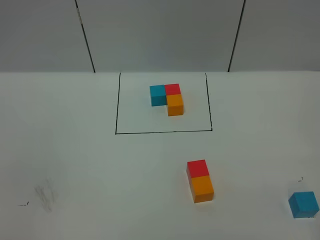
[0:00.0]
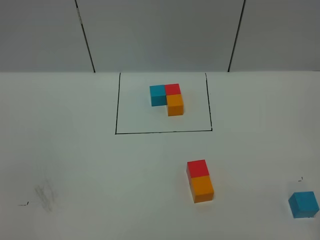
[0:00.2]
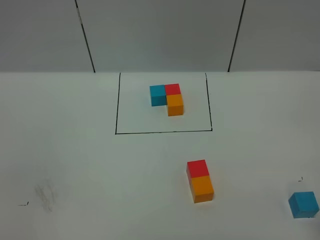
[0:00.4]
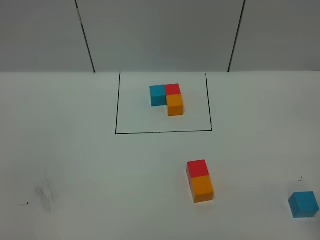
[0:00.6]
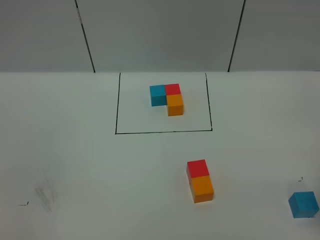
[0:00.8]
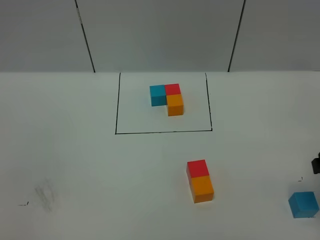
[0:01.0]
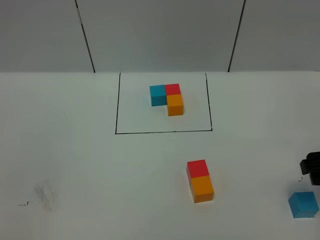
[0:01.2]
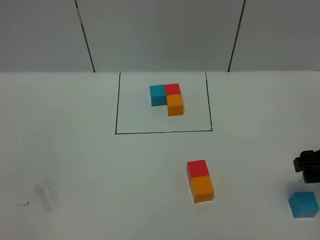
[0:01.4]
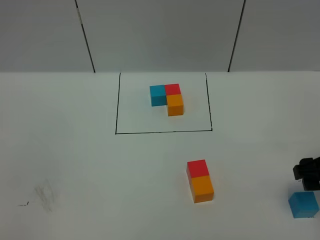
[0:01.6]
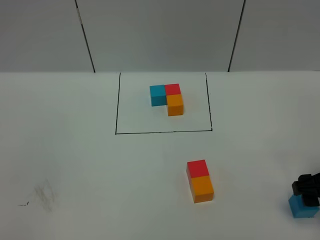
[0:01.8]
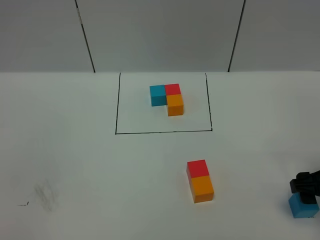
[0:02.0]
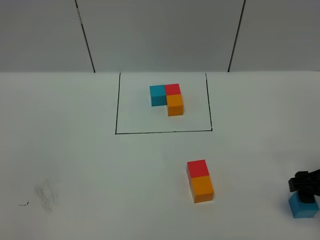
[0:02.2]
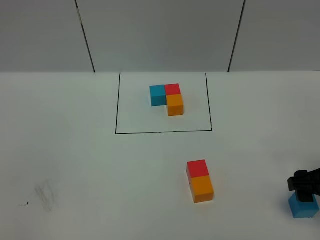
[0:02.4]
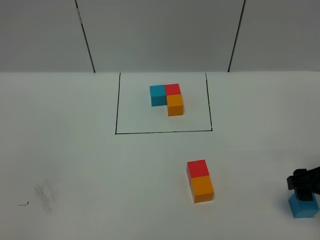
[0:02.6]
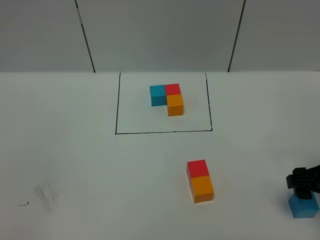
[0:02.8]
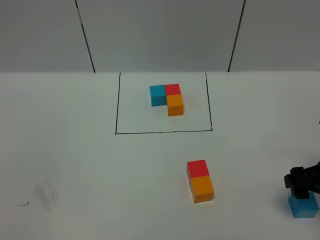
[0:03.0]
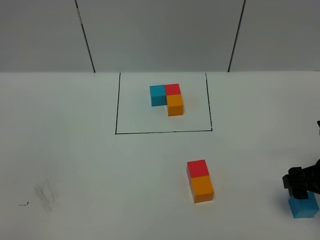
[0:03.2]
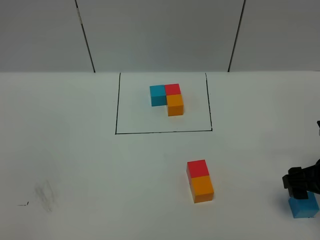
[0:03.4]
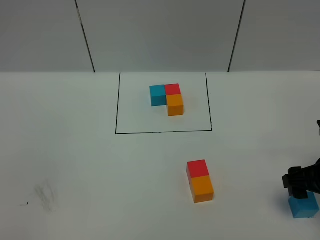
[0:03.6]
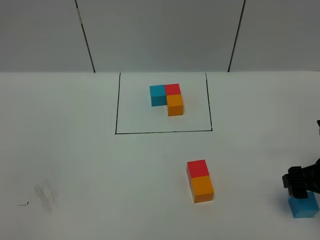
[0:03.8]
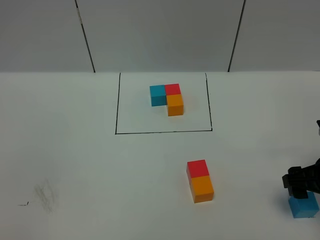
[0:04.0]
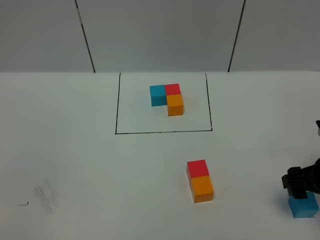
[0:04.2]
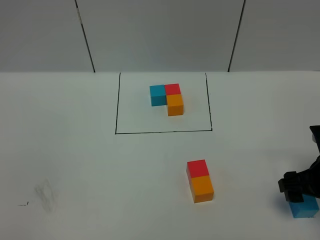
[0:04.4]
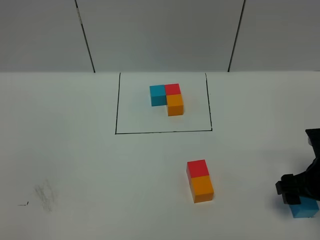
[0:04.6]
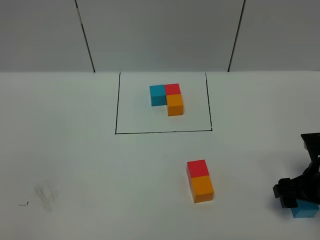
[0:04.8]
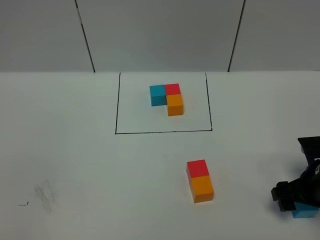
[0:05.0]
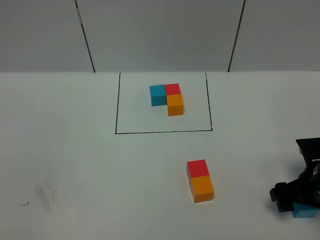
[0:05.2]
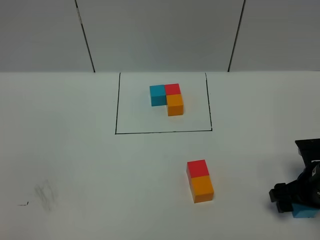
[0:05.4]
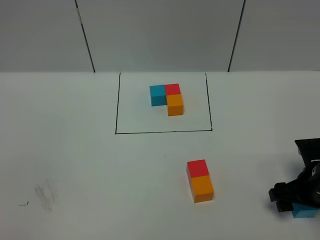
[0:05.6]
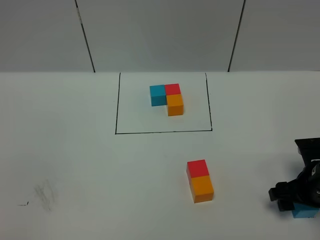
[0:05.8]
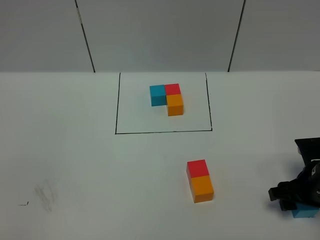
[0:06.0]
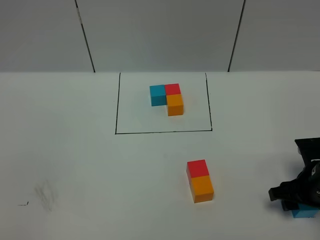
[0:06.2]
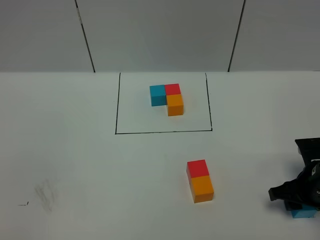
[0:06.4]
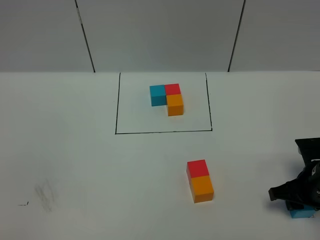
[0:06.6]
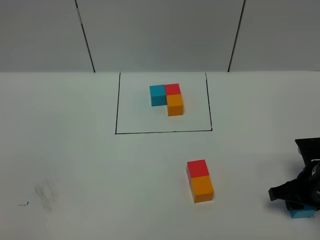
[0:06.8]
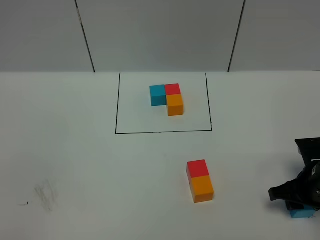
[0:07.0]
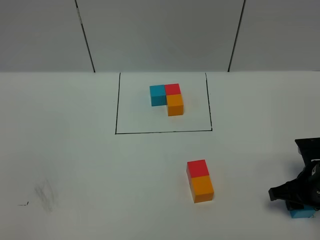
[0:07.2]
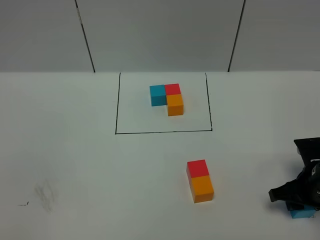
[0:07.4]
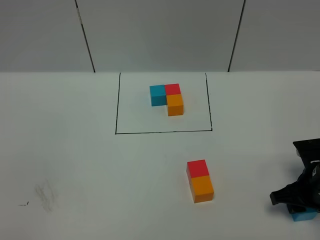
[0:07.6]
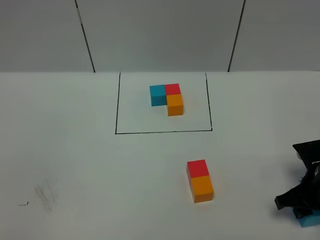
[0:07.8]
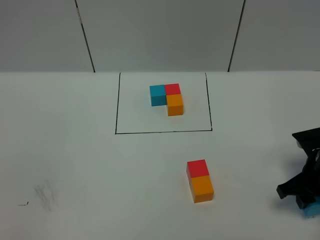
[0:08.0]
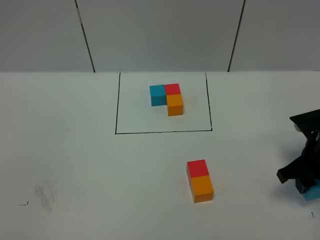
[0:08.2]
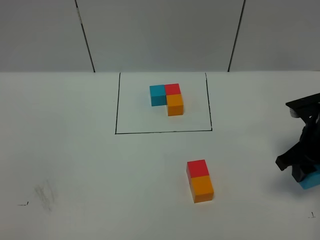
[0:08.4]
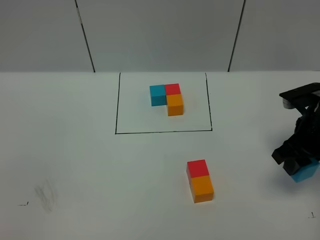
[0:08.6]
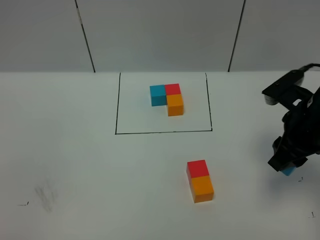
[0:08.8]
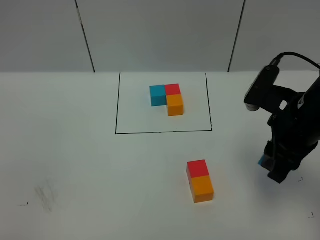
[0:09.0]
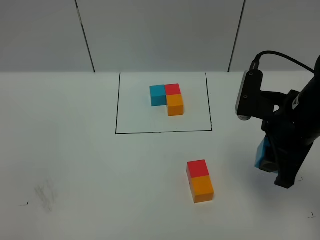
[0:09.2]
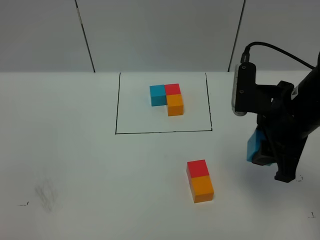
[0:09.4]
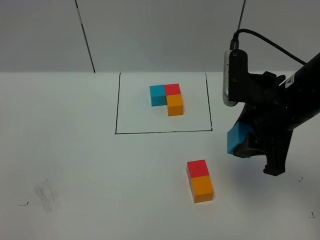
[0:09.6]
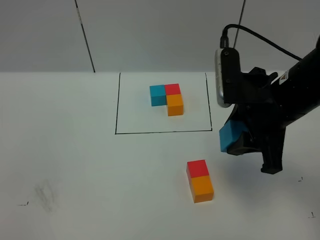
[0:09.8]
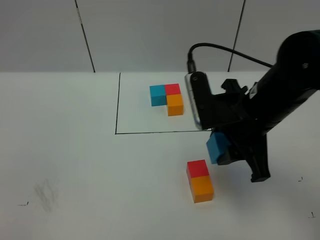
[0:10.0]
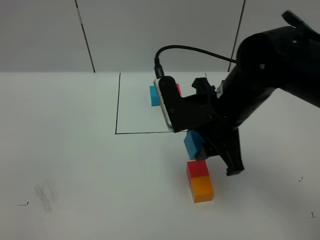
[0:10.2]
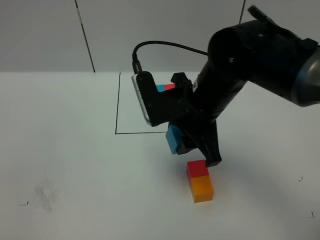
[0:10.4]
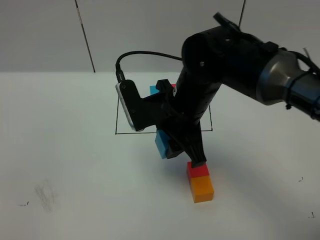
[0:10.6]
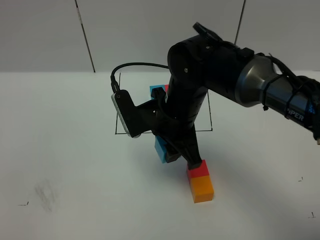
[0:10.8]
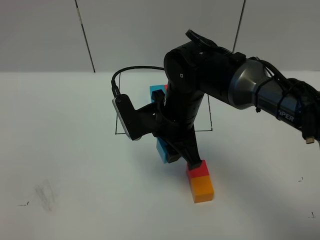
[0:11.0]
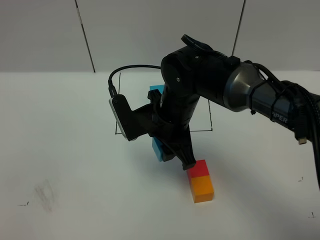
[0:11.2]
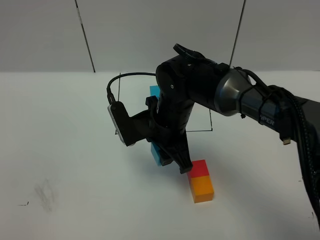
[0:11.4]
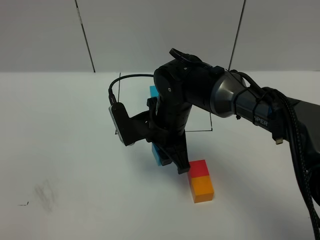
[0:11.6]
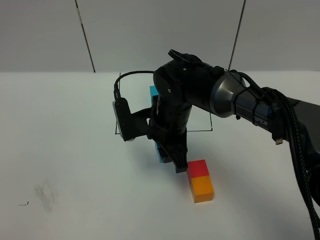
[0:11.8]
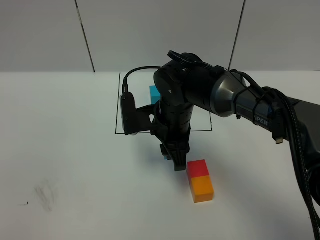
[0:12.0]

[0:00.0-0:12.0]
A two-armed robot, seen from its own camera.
Task of the whole recording: According to the building block template in front, assemble the scattered blocks together.
0:00.0 to 0:01.6: The right gripper heads downward and forward, covering some 15 cm.
0:01.6 to 0:03.0: The grippers make only small movements.
0:04.4 to 0:06.0: The right gripper closes its fingers.
0:06.0 to 0:07.6: The right gripper closes up.
0:07.6 to 0:09.0: The right gripper moves upward and to the left, some 15 cm.
0:09.0 to 0:10.4: The right gripper travels to the left by about 15 cm.
0:10.4 to 0:12.0: The right gripper is displaced downward by about 10 cm.

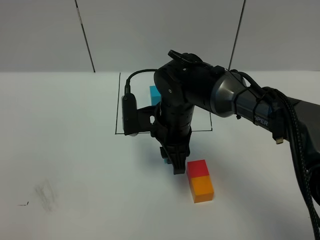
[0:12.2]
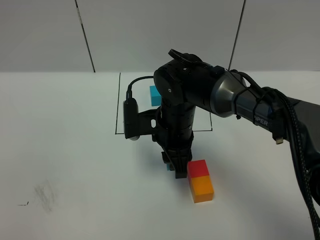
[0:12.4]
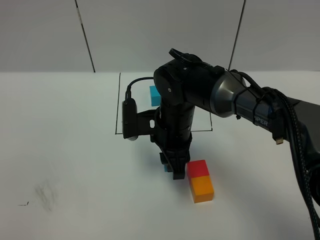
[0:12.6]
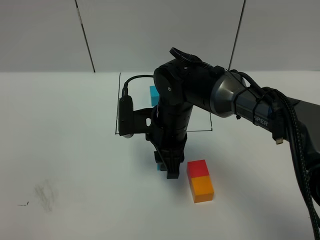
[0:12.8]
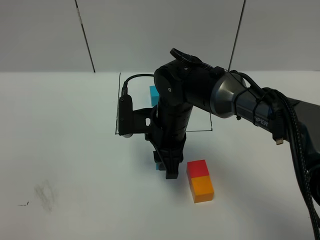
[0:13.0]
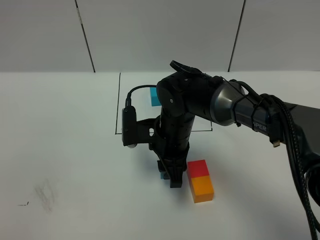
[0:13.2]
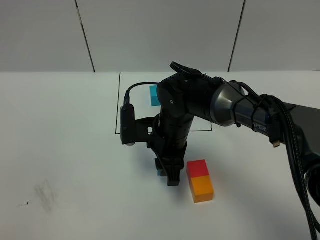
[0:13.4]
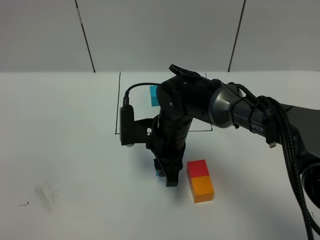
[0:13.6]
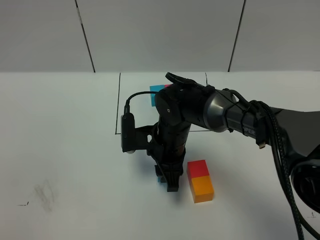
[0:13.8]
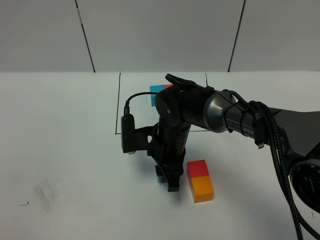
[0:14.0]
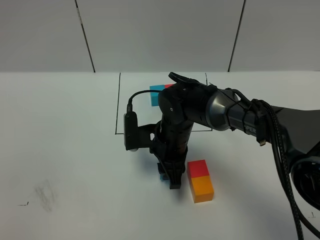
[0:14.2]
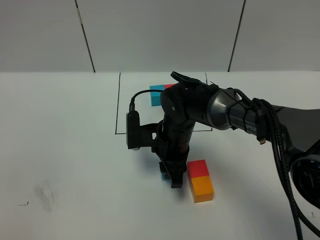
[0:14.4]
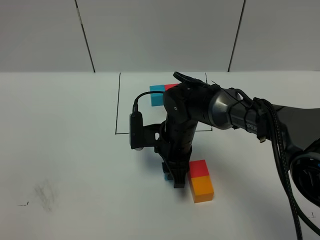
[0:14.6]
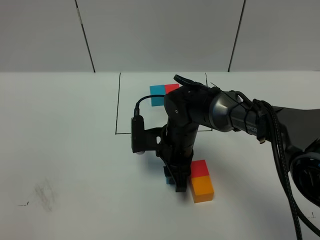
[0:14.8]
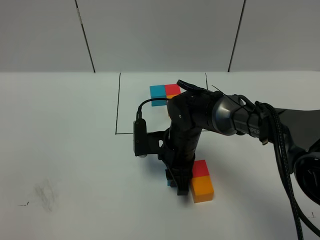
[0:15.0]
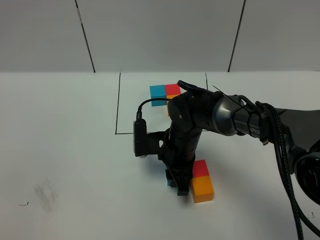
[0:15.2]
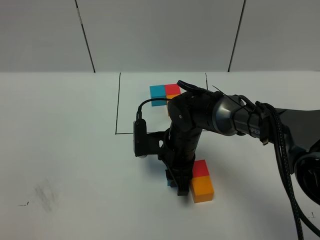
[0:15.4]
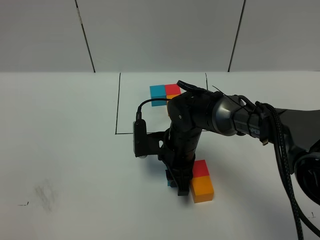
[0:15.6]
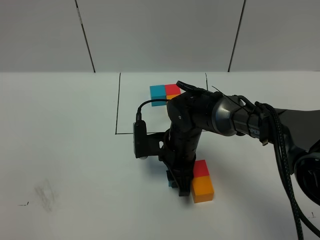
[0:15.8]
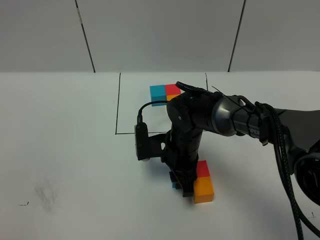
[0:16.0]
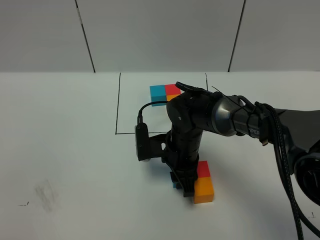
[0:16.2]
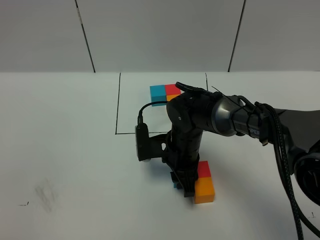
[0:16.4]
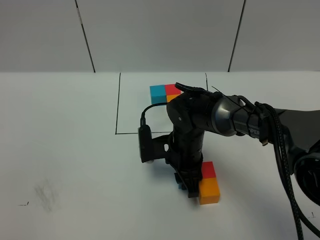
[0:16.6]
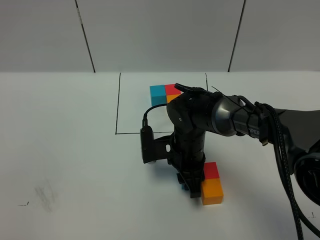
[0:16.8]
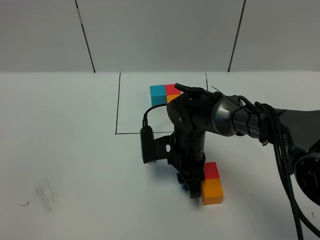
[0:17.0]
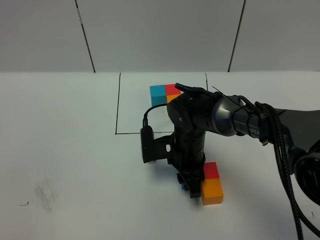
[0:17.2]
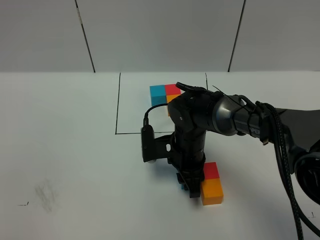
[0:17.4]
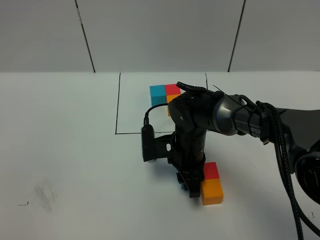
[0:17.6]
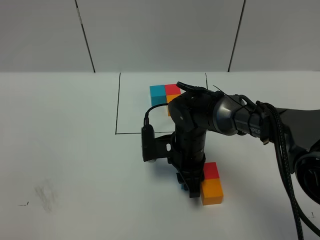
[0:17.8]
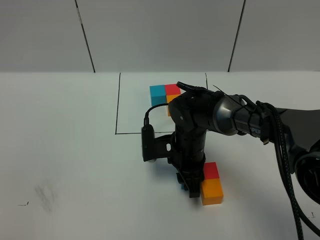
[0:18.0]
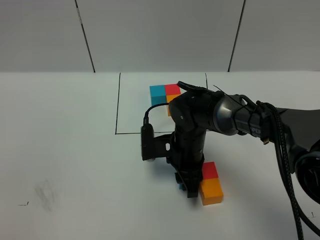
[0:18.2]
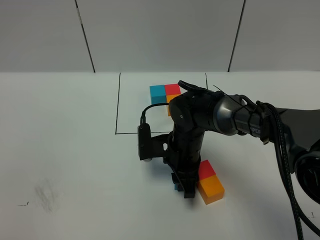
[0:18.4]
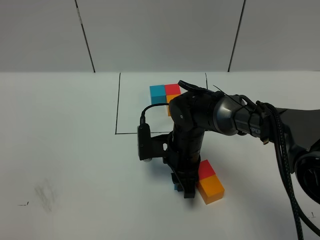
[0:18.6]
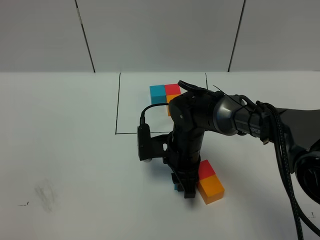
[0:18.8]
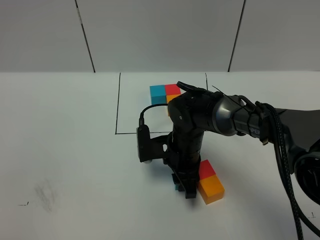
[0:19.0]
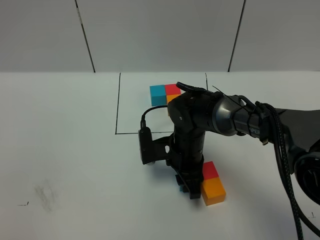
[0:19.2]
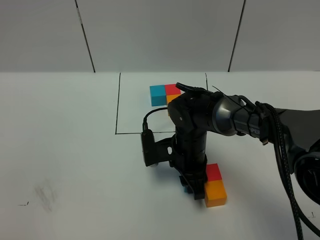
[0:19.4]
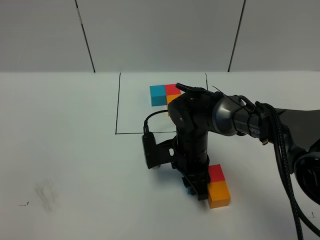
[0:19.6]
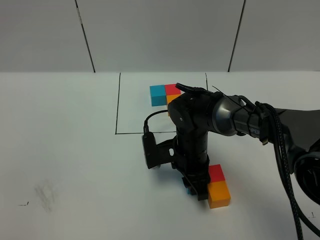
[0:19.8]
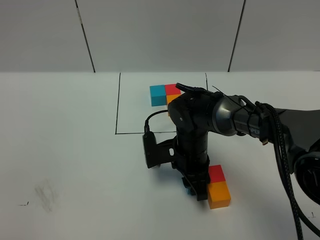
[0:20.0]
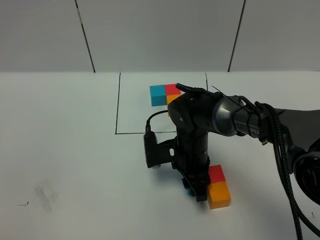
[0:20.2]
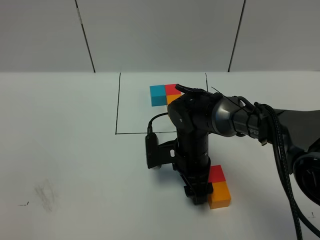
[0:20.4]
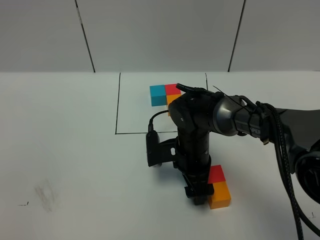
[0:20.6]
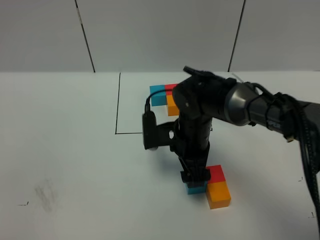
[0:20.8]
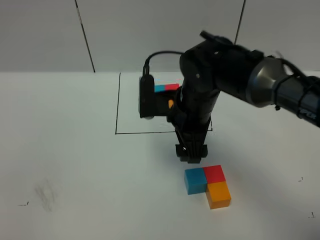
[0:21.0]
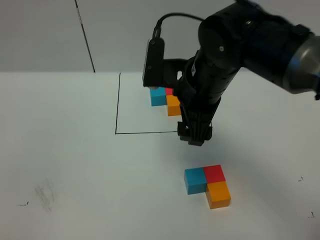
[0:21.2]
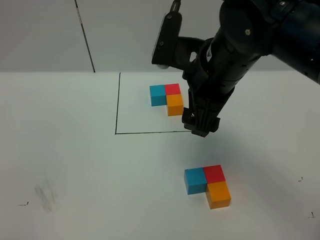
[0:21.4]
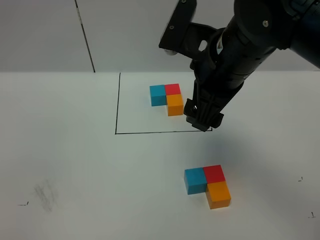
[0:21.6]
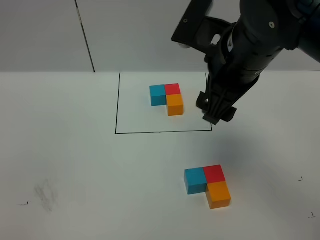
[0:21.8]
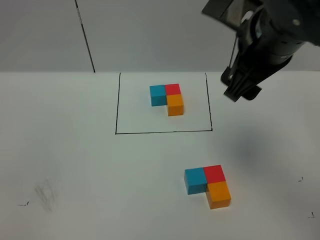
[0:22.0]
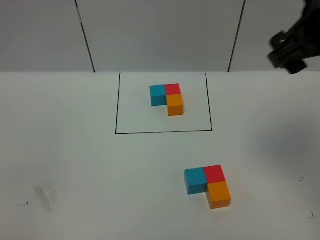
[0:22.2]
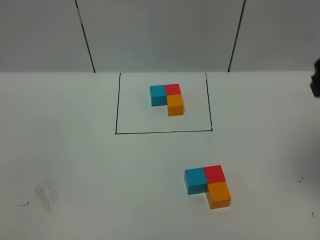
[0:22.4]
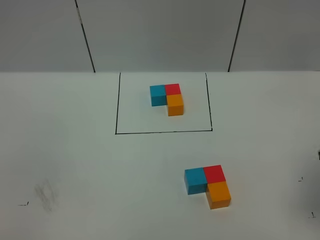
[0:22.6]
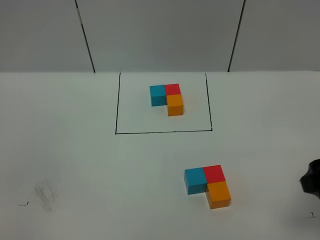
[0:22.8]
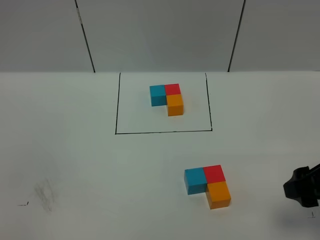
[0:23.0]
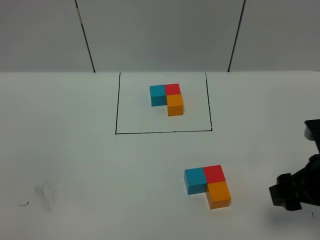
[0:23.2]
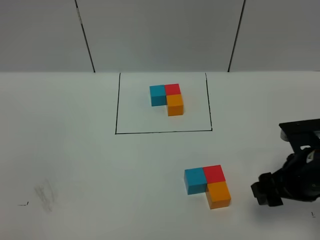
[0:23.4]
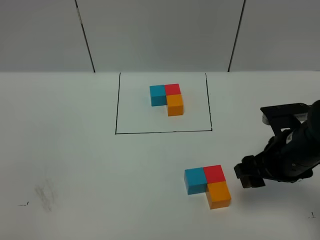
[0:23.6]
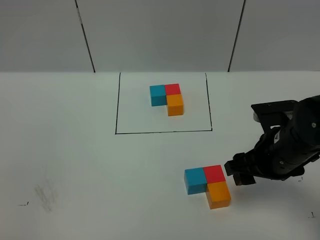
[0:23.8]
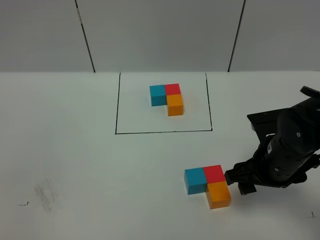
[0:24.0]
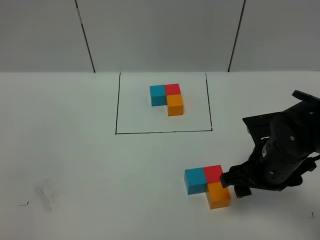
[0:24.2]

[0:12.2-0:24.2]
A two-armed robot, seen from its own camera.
Task of the whole recording: According to the building block template in front, assemble the scattered blocks together.
0:12.2 to 0:13.8: The grippers stay close to where they were, moving slightly.
0:13.8 to 0:16.6: The grippers make only small movements.
0:16.6 to 0:18.2: Both grippers stay put.
0:18.2 to 0:19.8: The grippers stay close to where they were, moving slightly.
0:19.8 to 0:21.2: The right gripper is displaced upward by about 20 cm, and opens.
0:21.2 to 0:22.6: The right gripper travels to the right and backward by some 25 cm.
0:22.6 to 0:24.2: The right gripper heads downward, to the left and forward, covering approximately 20 cm.
